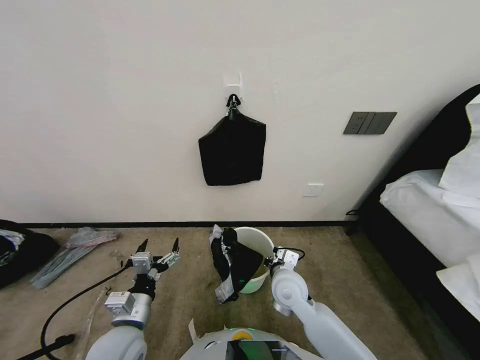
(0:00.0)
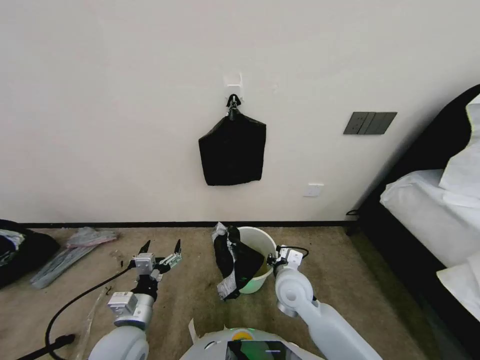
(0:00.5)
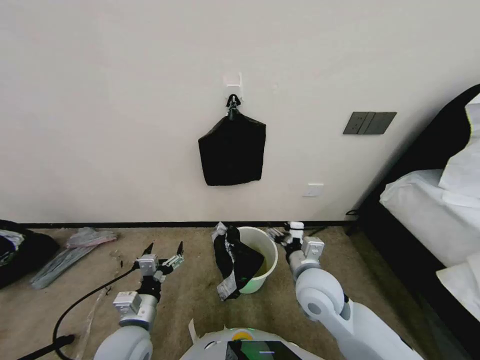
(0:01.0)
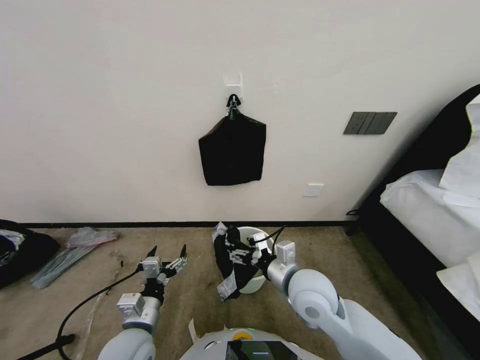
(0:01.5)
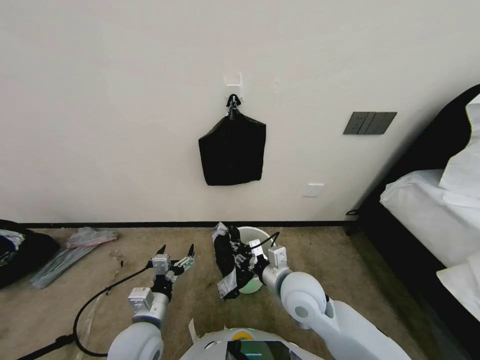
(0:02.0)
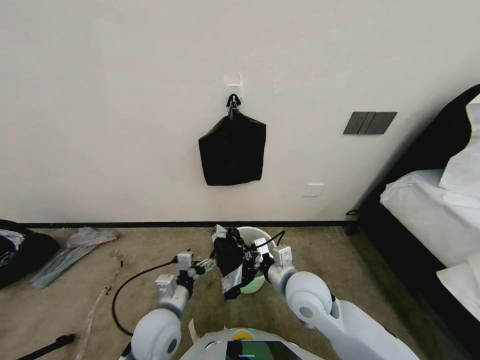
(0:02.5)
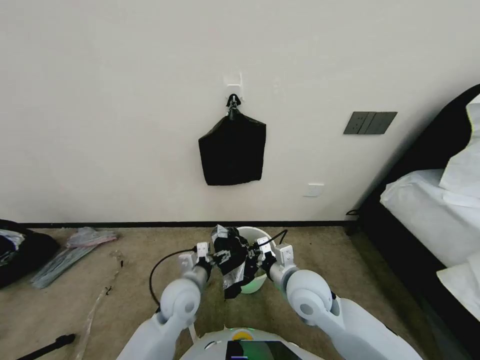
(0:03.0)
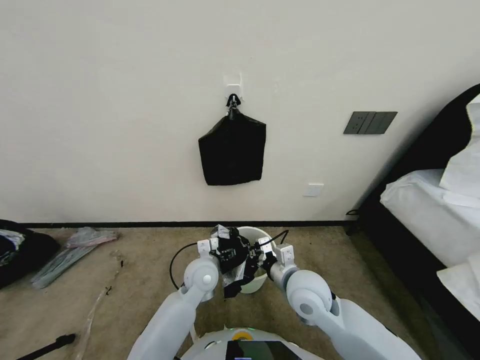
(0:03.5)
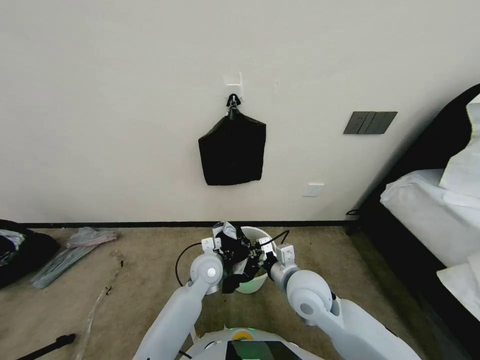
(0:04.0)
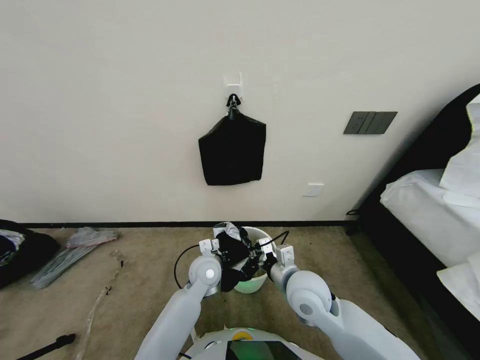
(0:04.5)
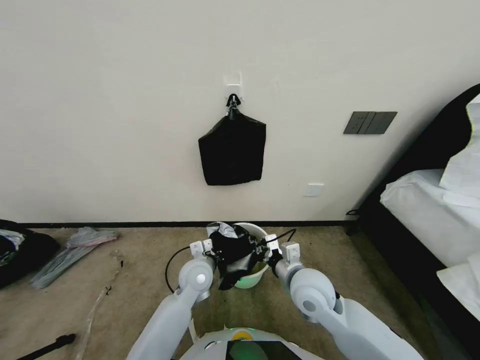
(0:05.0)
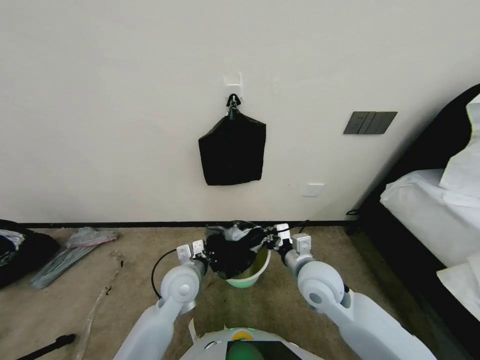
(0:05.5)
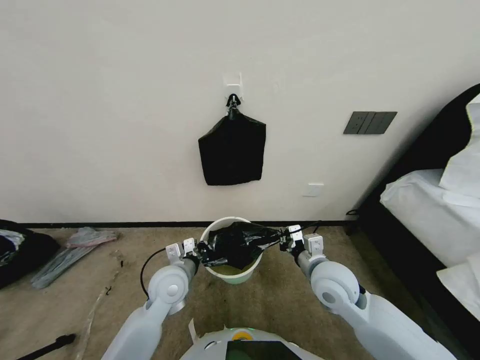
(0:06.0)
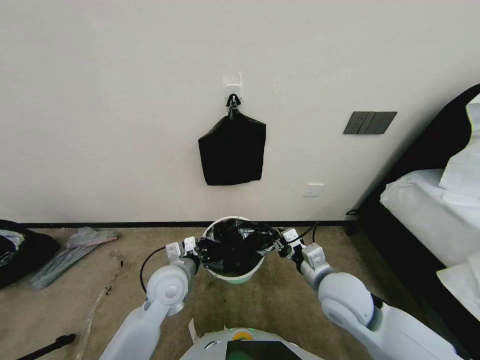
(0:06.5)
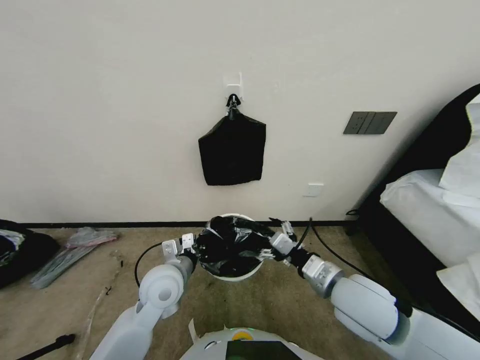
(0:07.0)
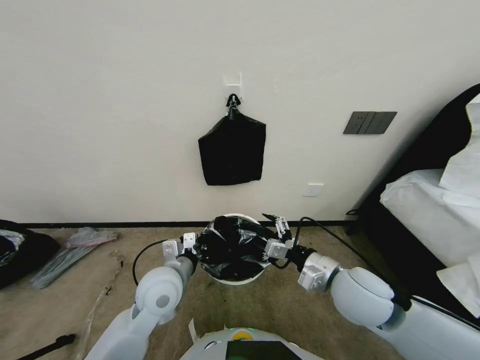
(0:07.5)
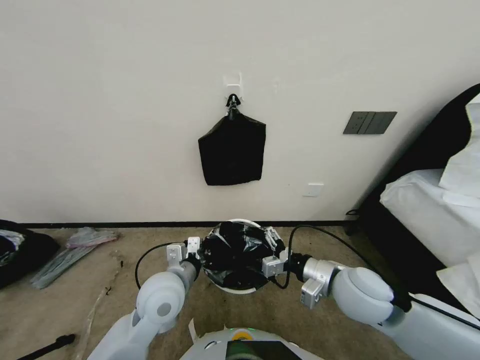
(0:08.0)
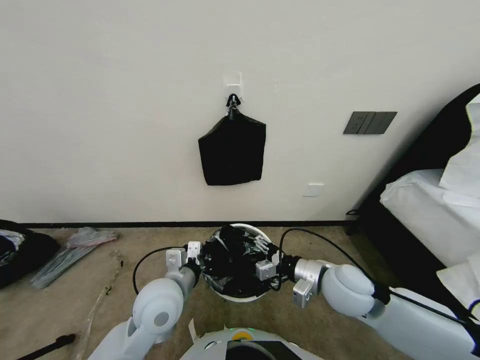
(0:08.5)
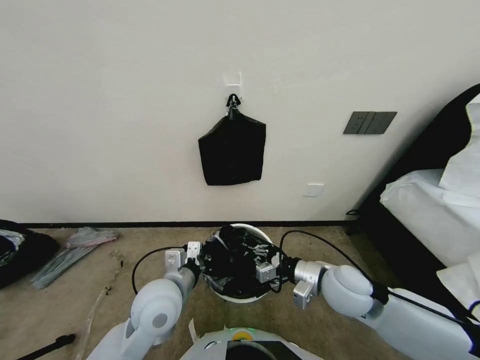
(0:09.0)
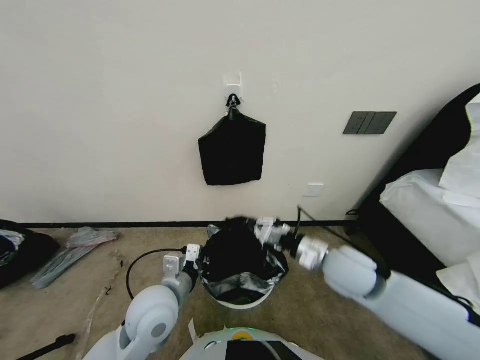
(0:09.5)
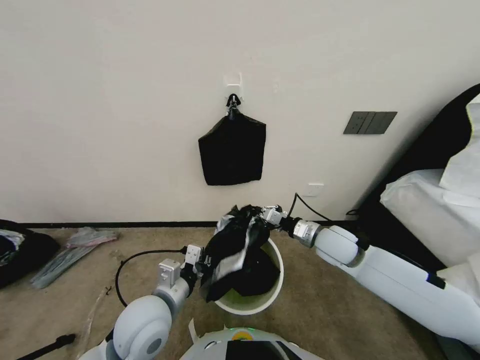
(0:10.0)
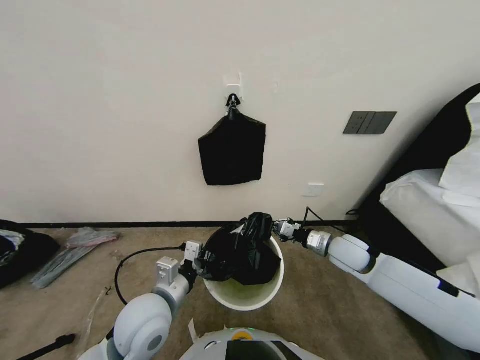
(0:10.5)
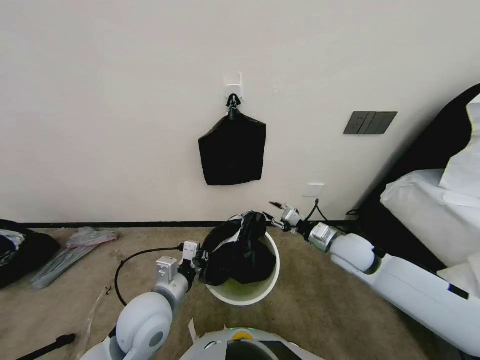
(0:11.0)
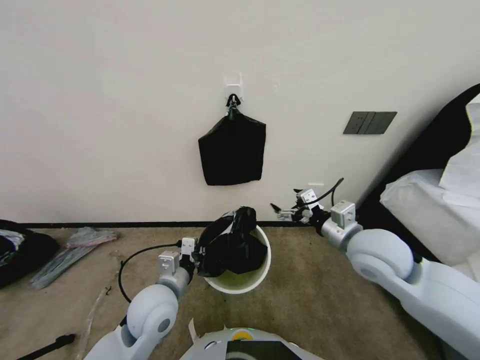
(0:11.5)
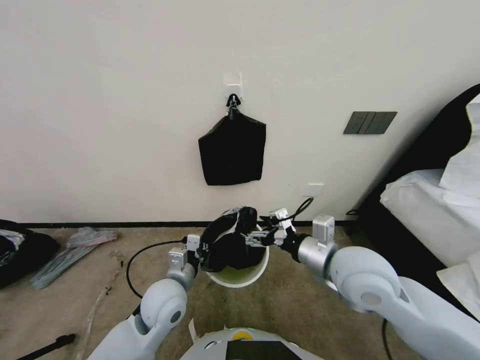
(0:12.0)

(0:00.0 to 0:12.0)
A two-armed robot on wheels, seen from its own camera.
Task of the whole recording: Place a trash bag onto the trash bin.
0:00.0 - 0:02.0: The right gripper heads upward, covering about 5 cm, and opens up.
0:02.0 - 0:04.0: The left gripper shifts some 20 cm forward and to the right, while the right gripper closes its fingers.
0:04.0 - 0:06.0: The left gripper moves to the left and backward, roughly 10 cm, and closes up. Meanwhile the right gripper shifts roughly 5 cm to the right.
0:06.0 - 0:08.0: The left gripper travels upward by roughly 5 cm, while the right gripper changes place by some 5 cm, and opens its fingers.
0:08.0 - 0:10.0: The left gripper travels backward by roughly 5 cm; the right gripper heads forward, covering some 10 cm, and closes its fingers.
0:10.0 - 0:12.0: The left gripper shifts by approximately 5 cm, while the right gripper moves backward and upward, approximately 15 cm, and opens up.

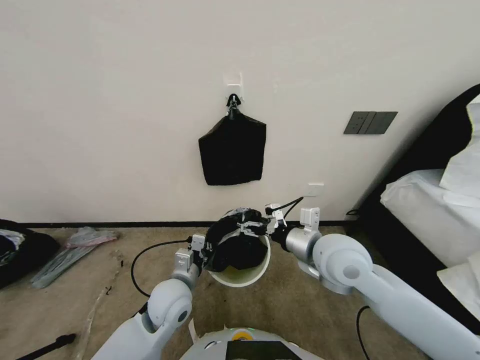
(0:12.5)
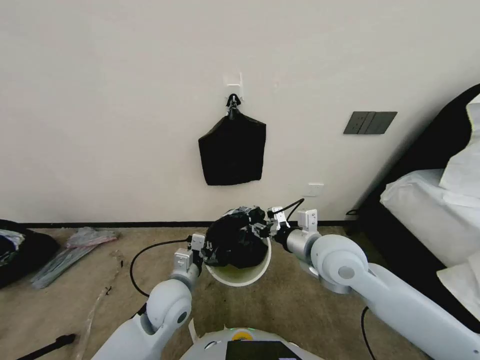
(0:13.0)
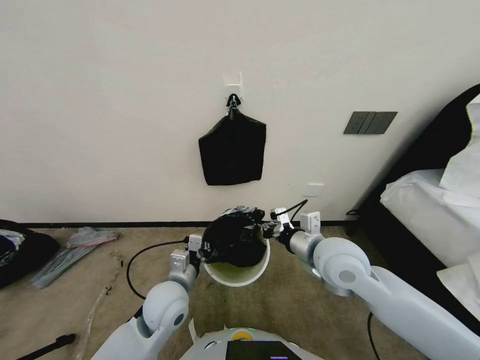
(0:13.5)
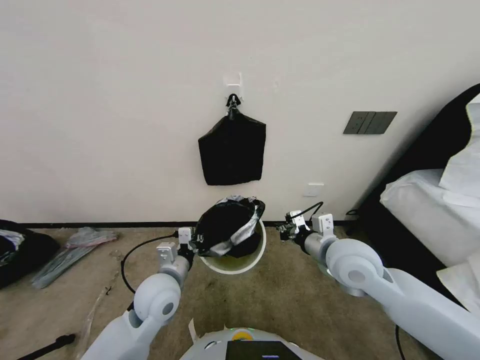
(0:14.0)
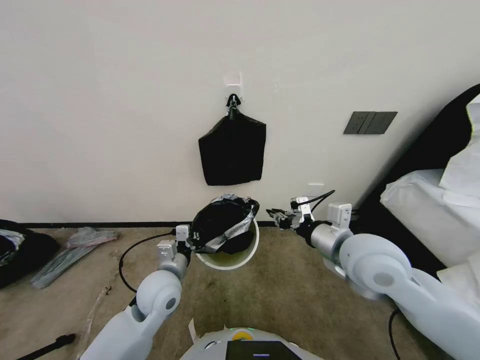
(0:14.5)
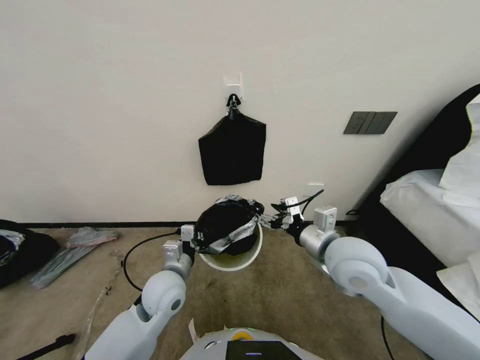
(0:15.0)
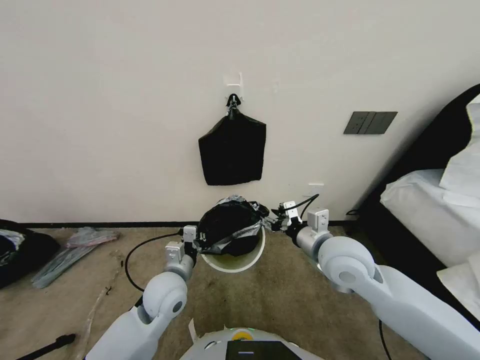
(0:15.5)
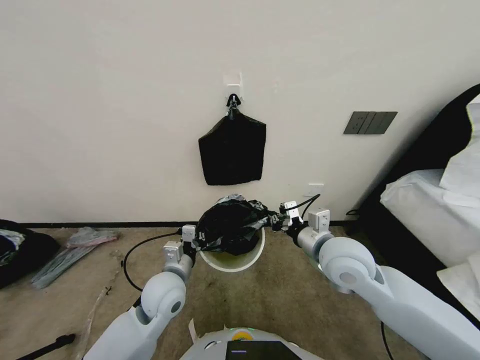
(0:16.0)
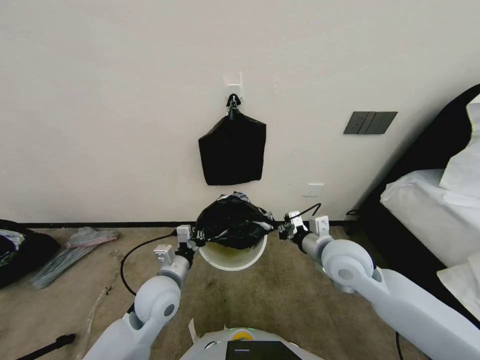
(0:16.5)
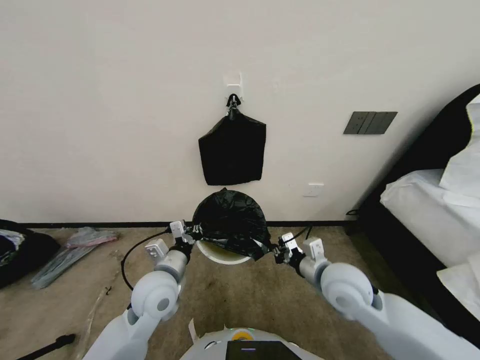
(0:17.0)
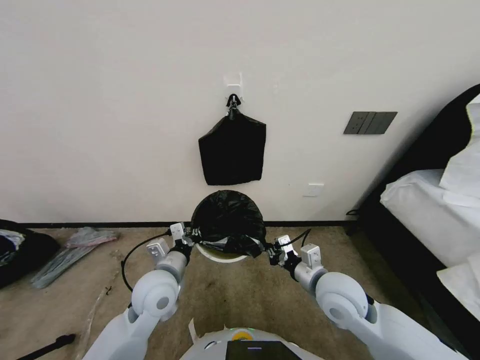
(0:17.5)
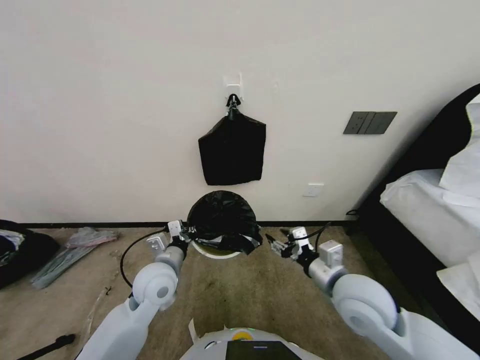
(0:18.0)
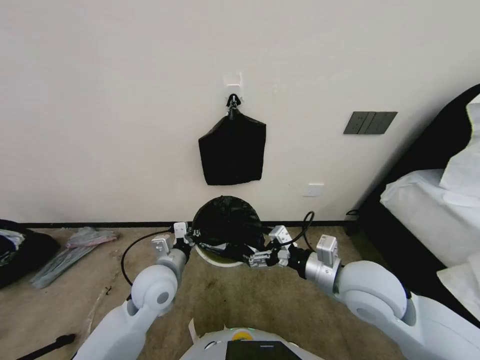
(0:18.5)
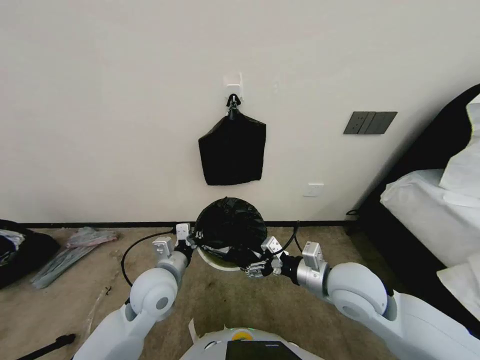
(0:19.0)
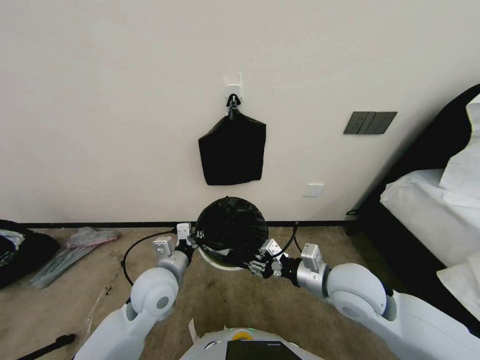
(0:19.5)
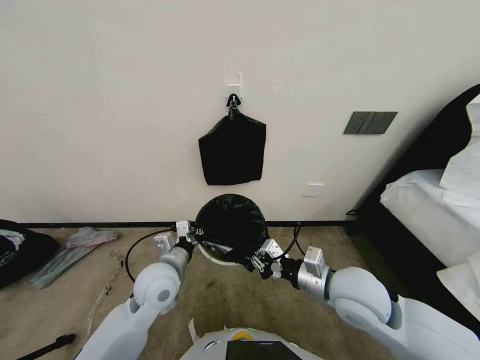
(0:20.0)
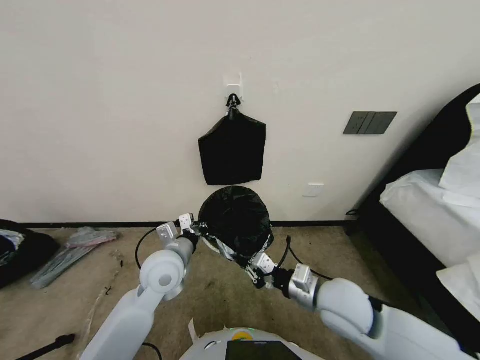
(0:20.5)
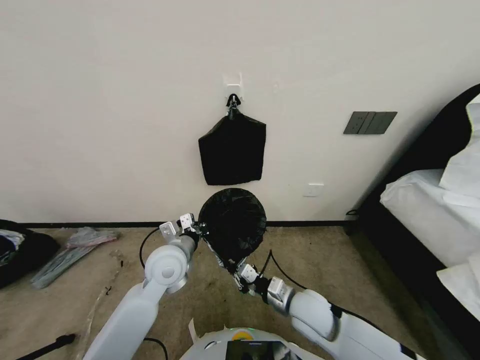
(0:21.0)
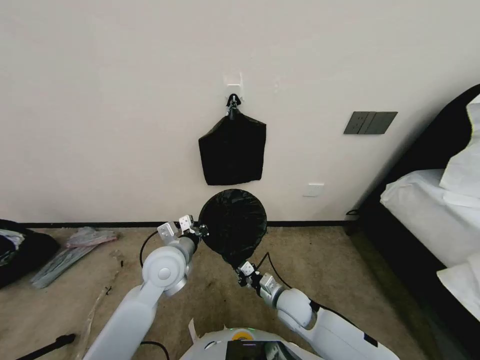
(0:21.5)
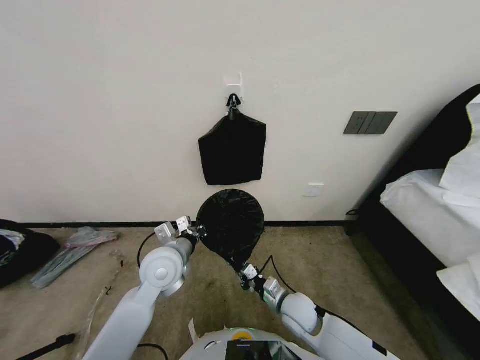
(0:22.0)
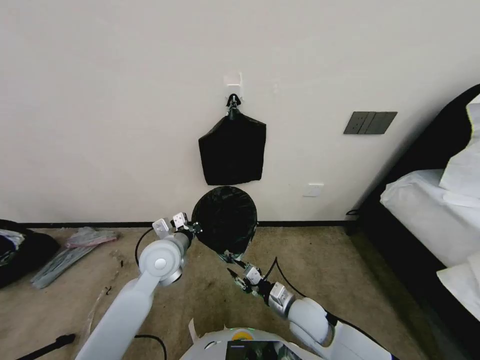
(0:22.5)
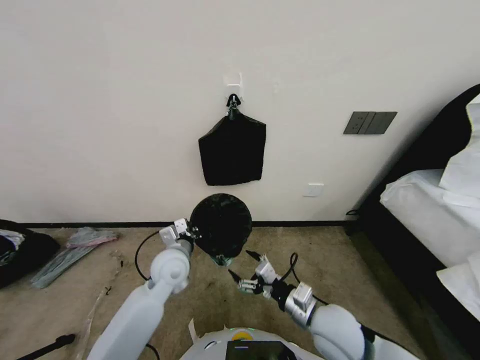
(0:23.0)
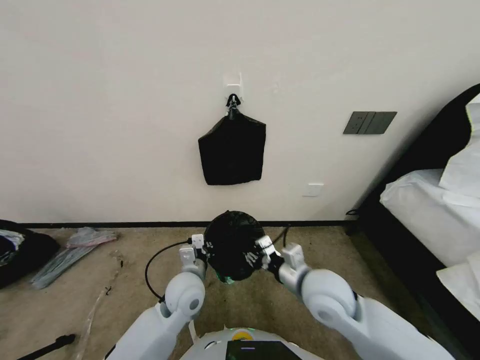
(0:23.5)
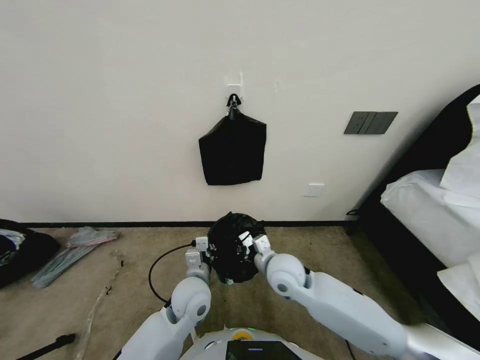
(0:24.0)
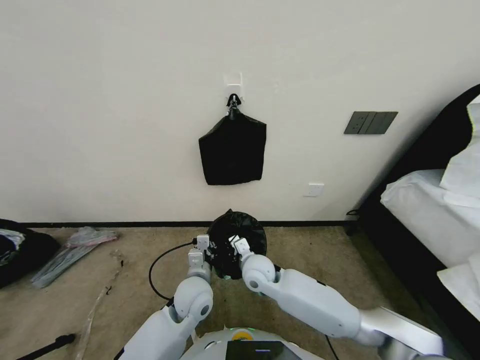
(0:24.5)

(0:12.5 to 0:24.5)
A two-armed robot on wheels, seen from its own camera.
Task of the whole recording: Place a trash bag onto the trash bin.
0:12.5 - 0:14.5: The right gripper closes up.
0:14.5 - 0:16.5: The right gripper travels downward by roughly 5 cm, and opens, then closes again.
0:16.5 - 0:18.5: The right gripper heads backward, covering some 5 cm, and opens its fingers.
0:18.5 - 0:20.5: The right gripper closes.
0:20.5 - 0:22.5: The right gripper is displaced downward by about 15 cm.
0:22.5 - 0:24.5: The left gripper moves downward, to the right and backward, approximately 15 cm. The right gripper is displaced to the left, forward and upward by some 15 cm, and opens and closes again.

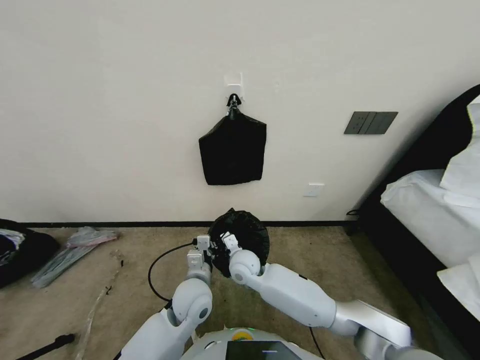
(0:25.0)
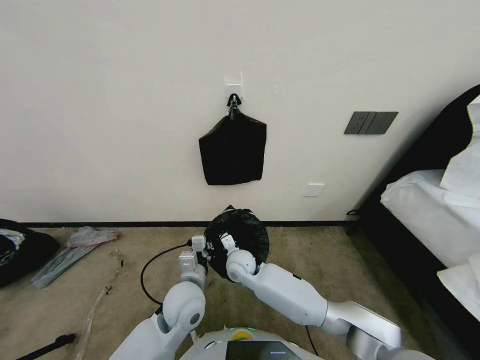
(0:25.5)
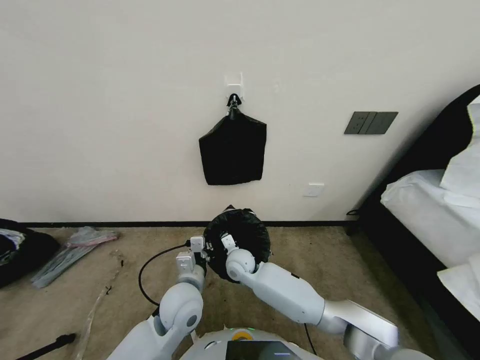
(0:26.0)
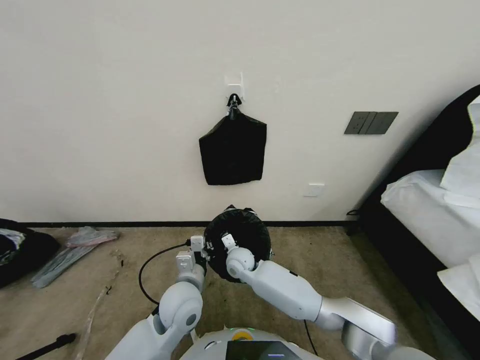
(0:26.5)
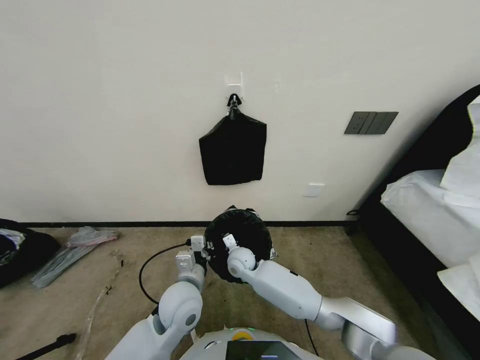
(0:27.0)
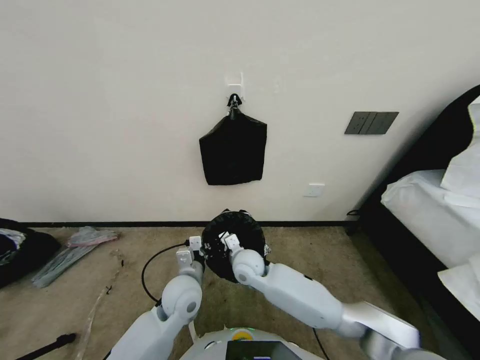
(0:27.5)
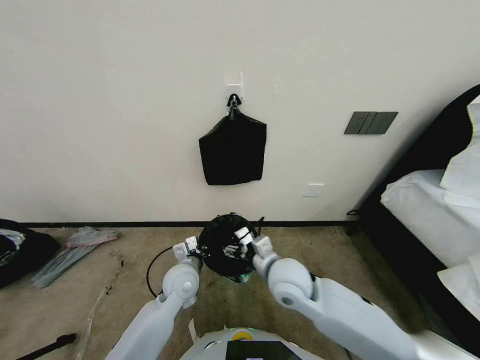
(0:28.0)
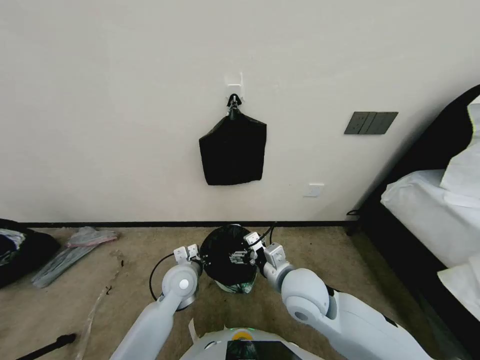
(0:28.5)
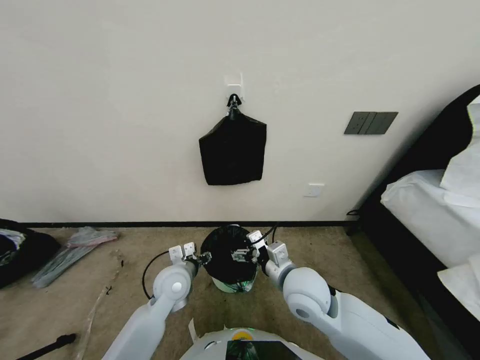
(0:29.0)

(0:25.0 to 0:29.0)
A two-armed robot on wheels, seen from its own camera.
Task of the whole recording: Place a trash bag onto the trash bin.
0:25.0 - 0:27.0: The right gripper moves some 5 cm.
0:27.0 - 0:29.0: The right gripper travels upward, backward and to the right by some 25 cm, and opens its fingers; the left gripper moves forward, roughly 5 cm, and opens its fingers.
